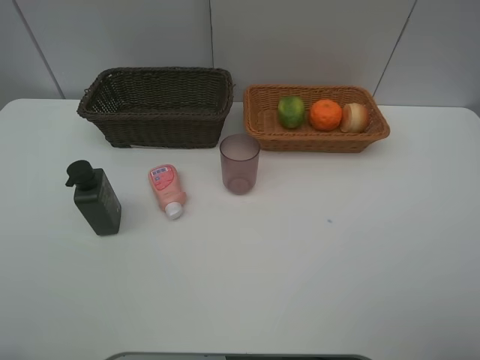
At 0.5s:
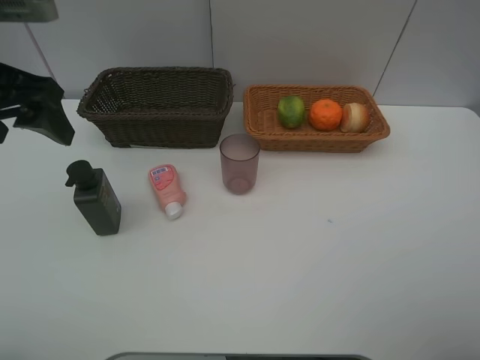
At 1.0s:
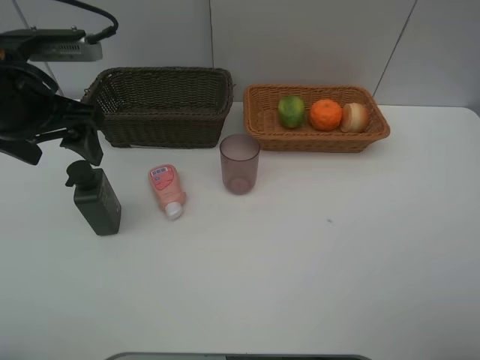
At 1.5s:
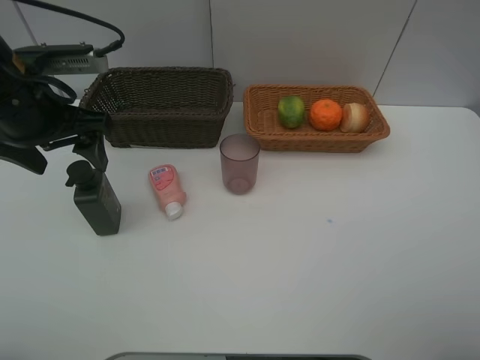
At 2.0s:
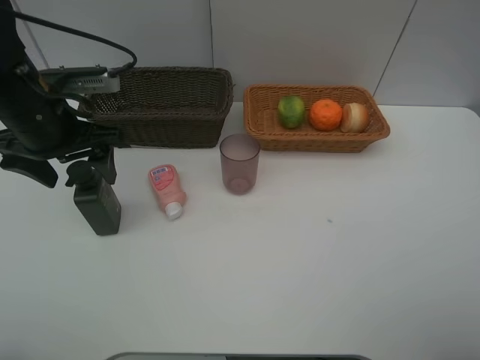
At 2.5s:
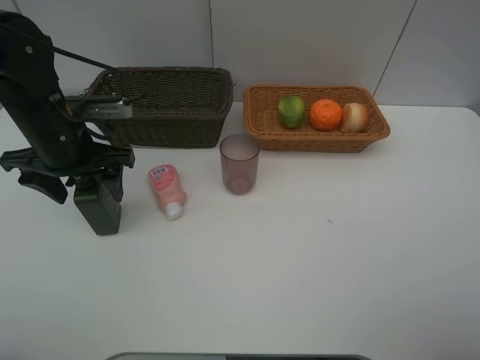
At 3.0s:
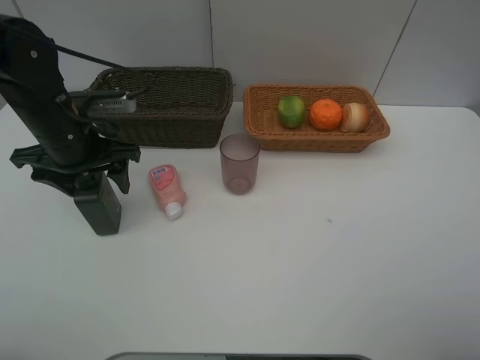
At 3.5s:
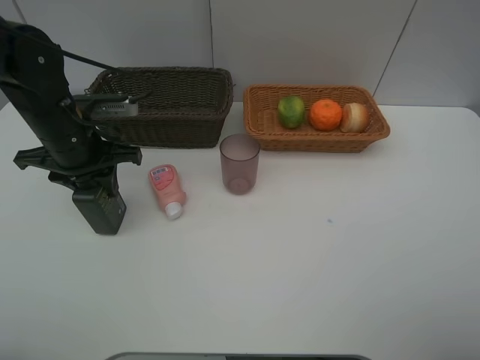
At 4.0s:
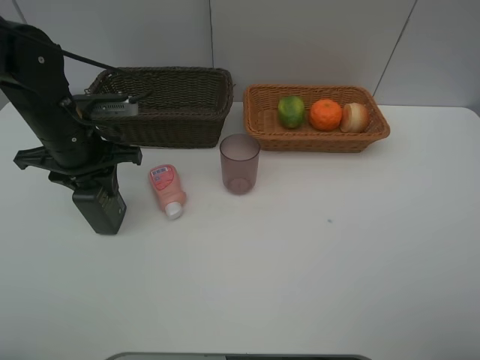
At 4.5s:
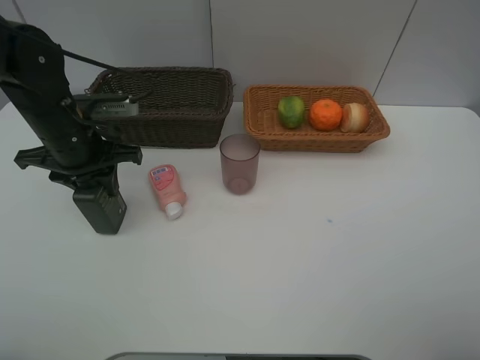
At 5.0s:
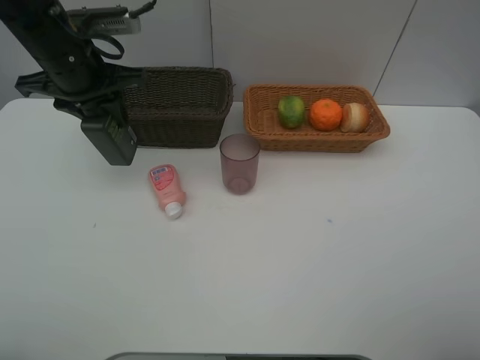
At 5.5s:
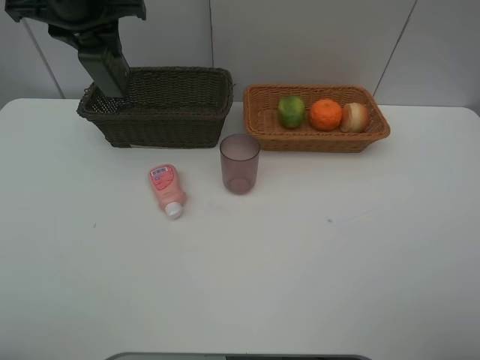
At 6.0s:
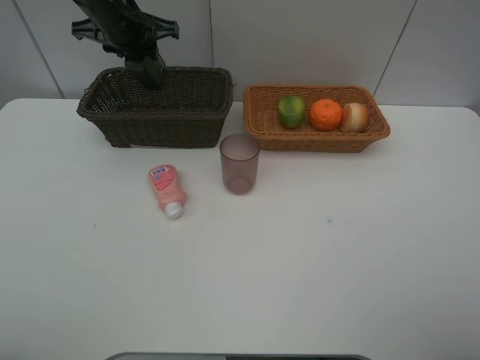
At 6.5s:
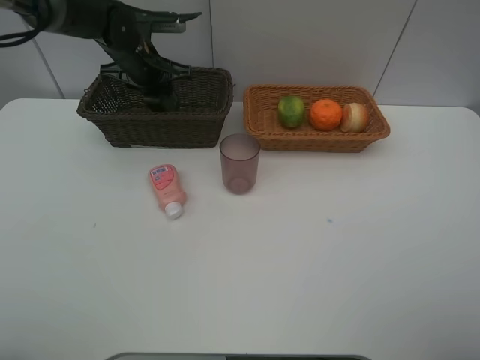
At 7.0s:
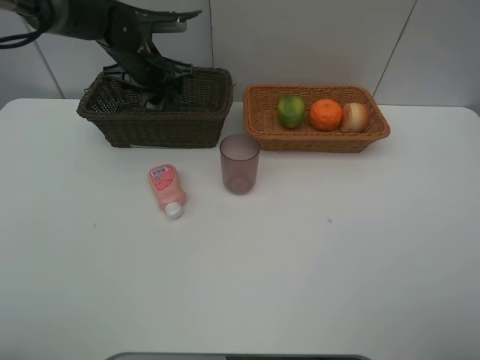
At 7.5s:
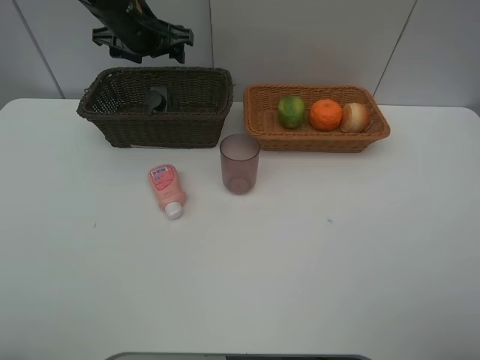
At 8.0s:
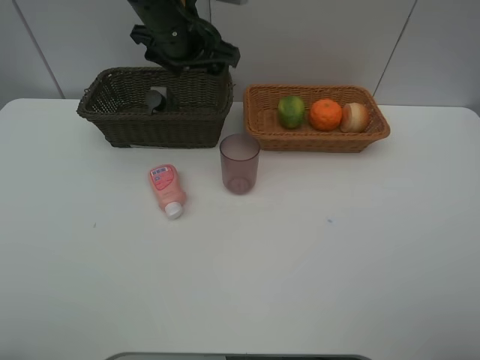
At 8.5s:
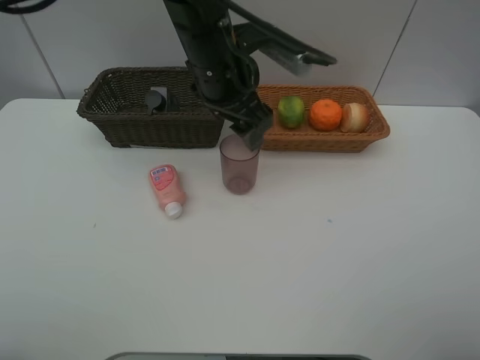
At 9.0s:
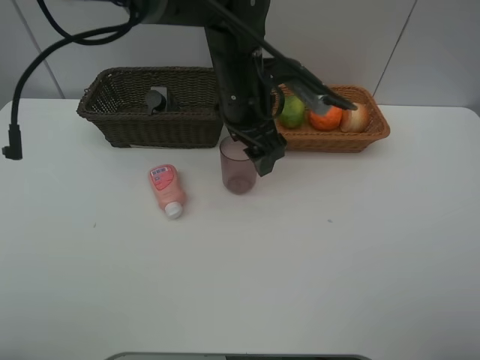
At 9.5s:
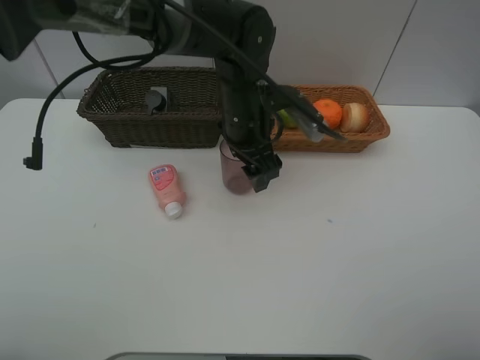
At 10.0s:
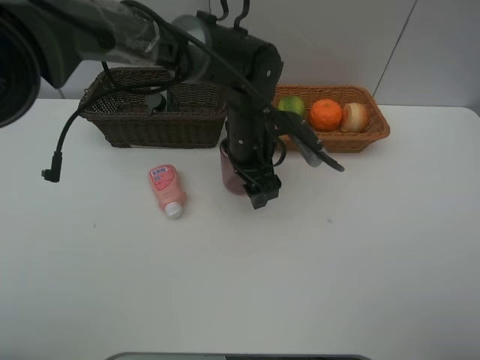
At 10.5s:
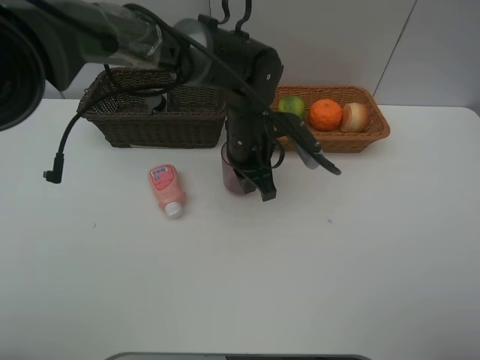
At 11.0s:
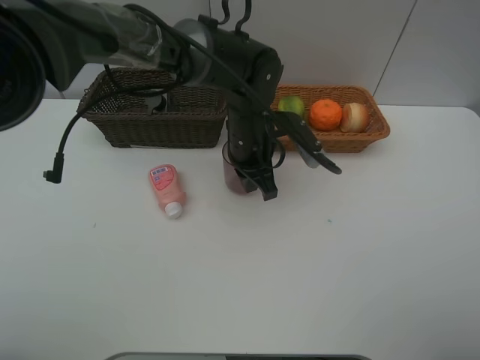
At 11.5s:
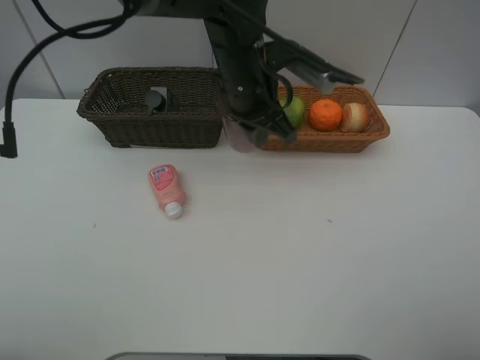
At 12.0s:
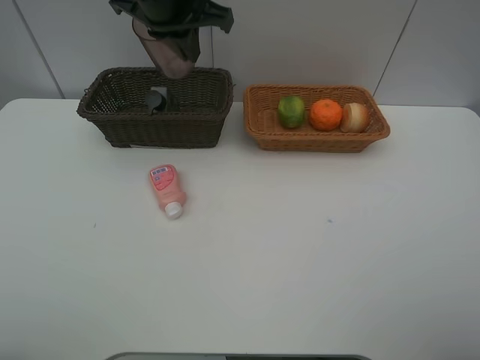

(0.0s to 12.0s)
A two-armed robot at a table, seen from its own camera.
Task of the whole recording: place multiple objects separately in different baskets.
0.0s - 2.0s: The left gripper is displaced forward, downward and to the right by some 20 cm.
2.0s - 4.0s: The left gripper shifts by about 5 cm, and closes.
4.0s - 6.0s: The left gripper is displaced forward and upward by roughly 20 cm.
6.0s - 8.0s: The left gripper travels to the right and backward by some 10 cm, and opens up.
8.0s - 10.0s: The left gripper heads downward, to the right and backward, covering approximately 15 cm.
10.0s - 12.0s: The left gripper shifts roughly 20 cm upward and to the left, and closes its fingers.

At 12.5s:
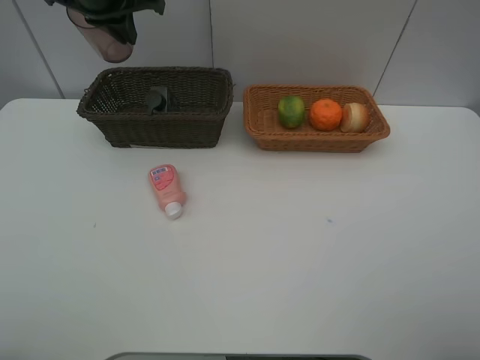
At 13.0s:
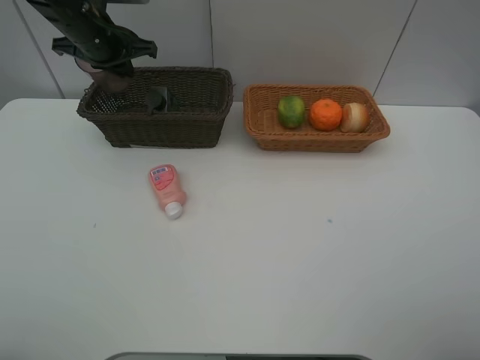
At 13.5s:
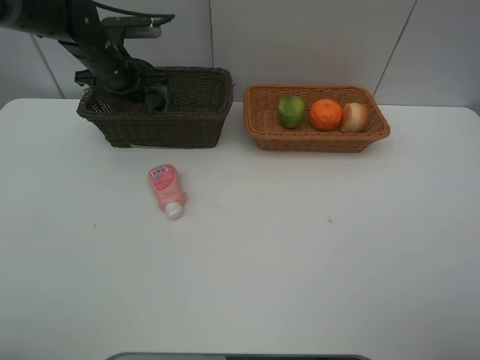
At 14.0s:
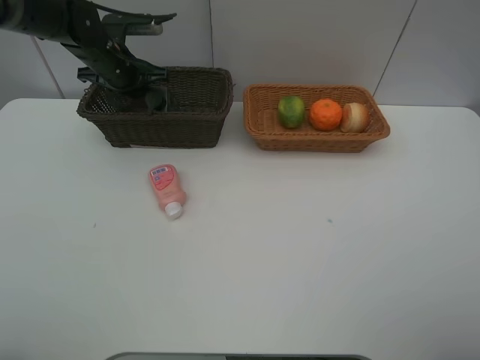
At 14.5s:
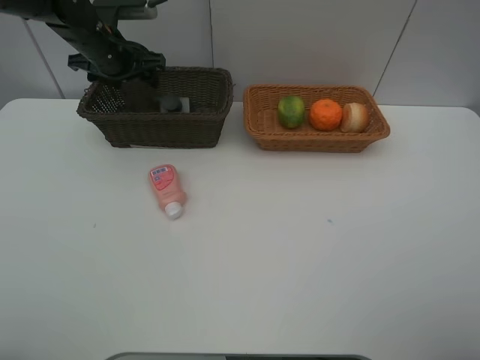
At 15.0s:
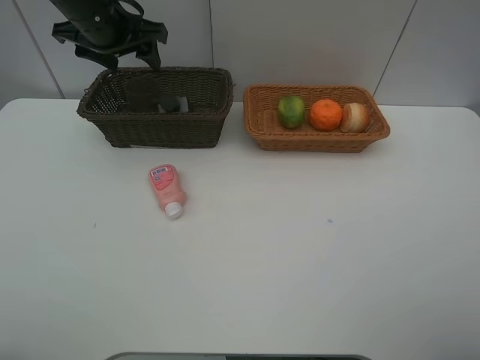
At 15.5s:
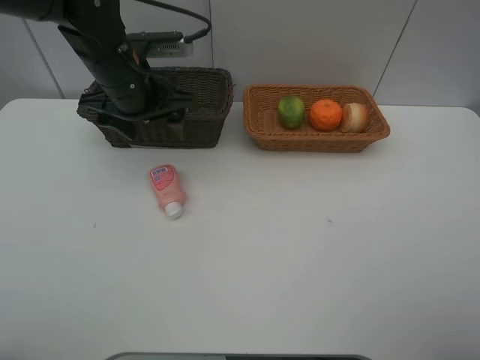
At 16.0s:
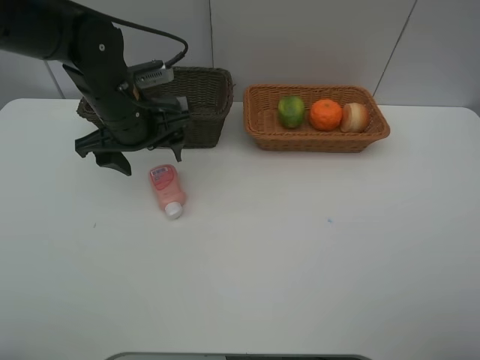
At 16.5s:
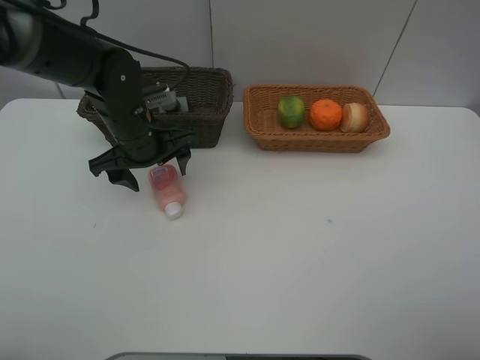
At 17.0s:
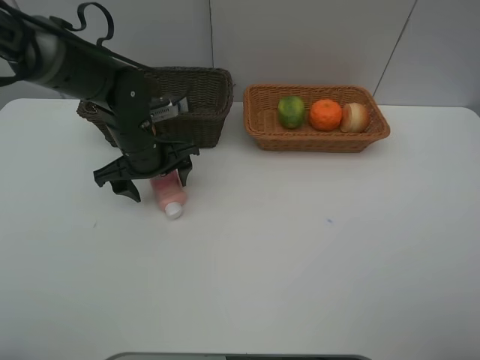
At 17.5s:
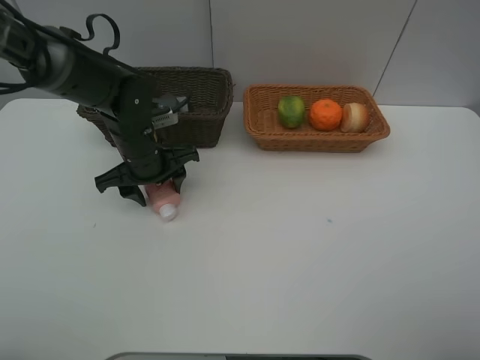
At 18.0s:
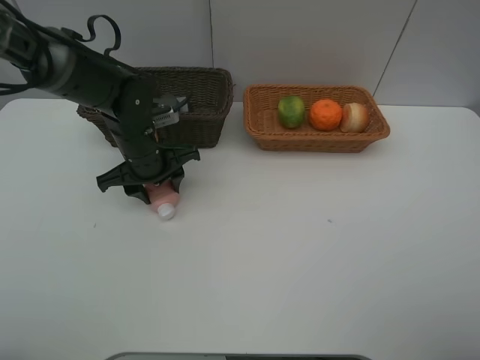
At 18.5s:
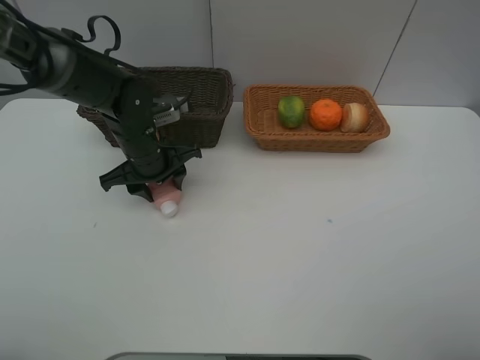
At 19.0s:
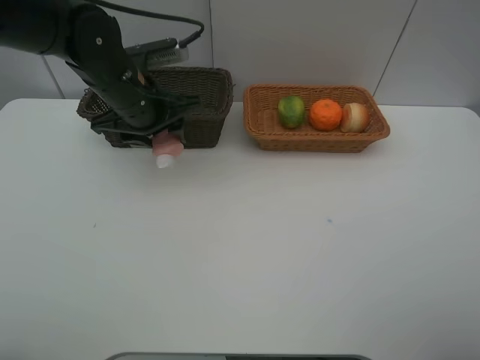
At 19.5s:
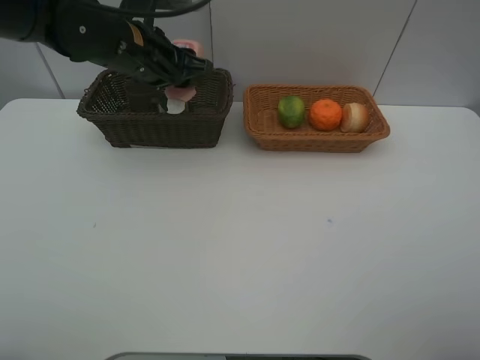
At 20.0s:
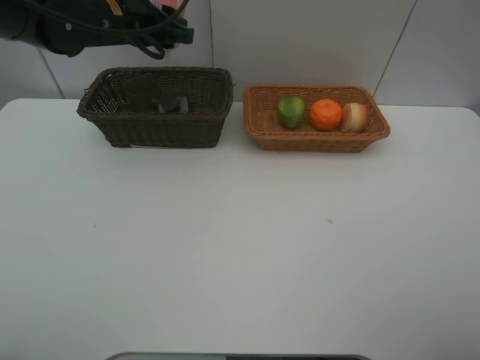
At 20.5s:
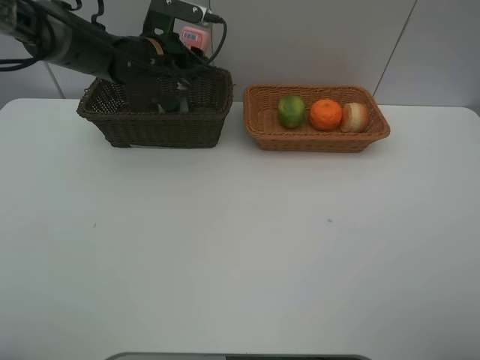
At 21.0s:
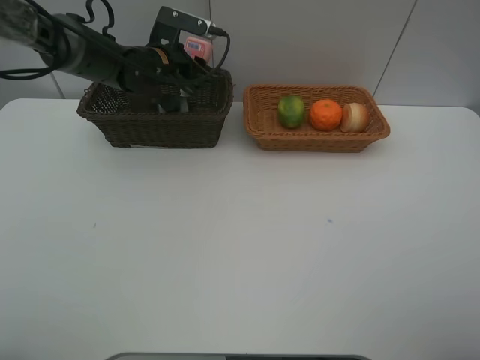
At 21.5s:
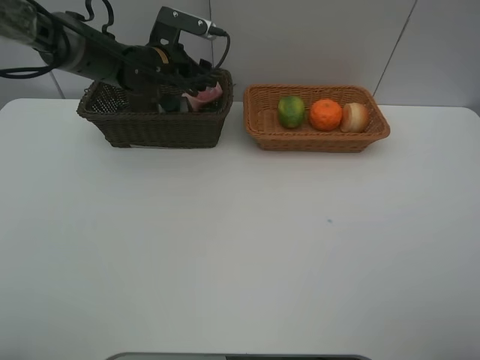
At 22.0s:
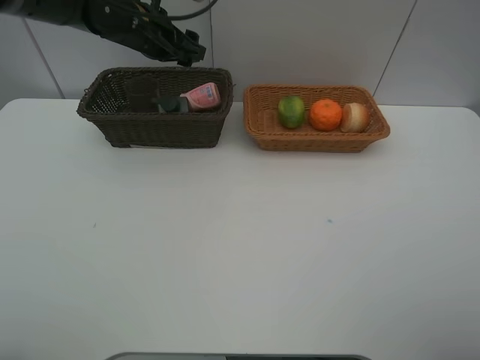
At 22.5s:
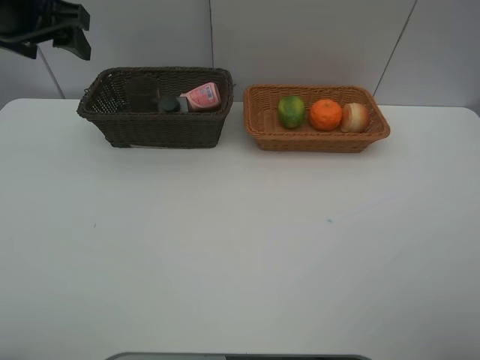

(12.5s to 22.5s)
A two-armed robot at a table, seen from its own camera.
Task of the whole recording: place multiple objects separately in different baskets.
12.5s - 14.5s: The left gripper goes about 10 cm downward, and opens its fingers.
14.5s - 16.5s: The left gripper is displaced backward, downward and to the right by approximately 15 cm.
16.5s - 18.5s: The left gripper closes up.
18.5s - 20.5s: The left gripper goes approximately 15 cm forward and upward.
20.5s - 22.5s: The left gripper goes about 20 cm upward, to the left and backward.

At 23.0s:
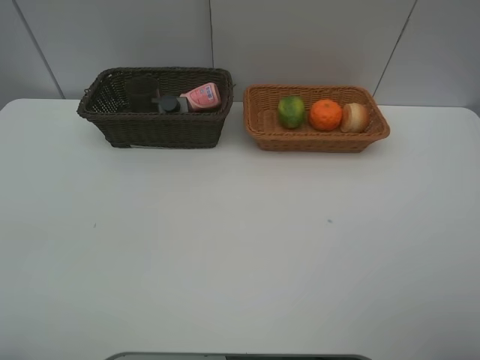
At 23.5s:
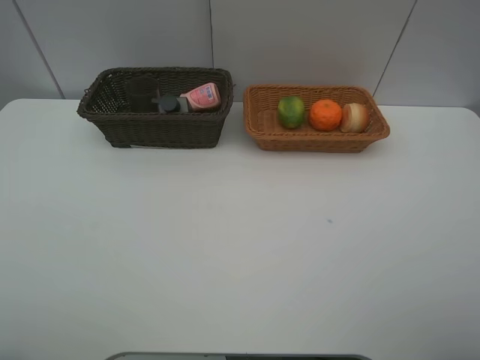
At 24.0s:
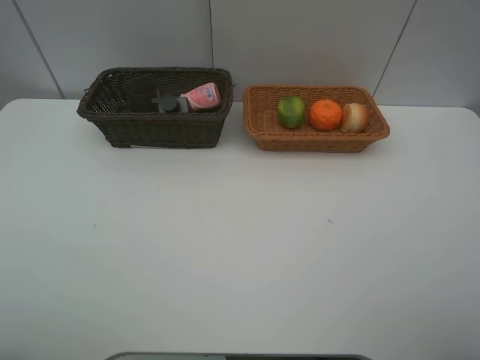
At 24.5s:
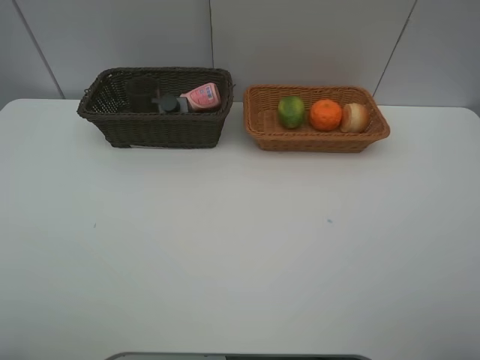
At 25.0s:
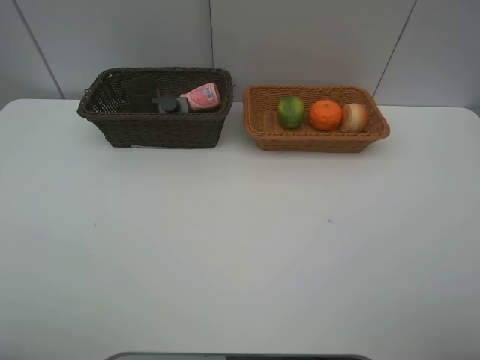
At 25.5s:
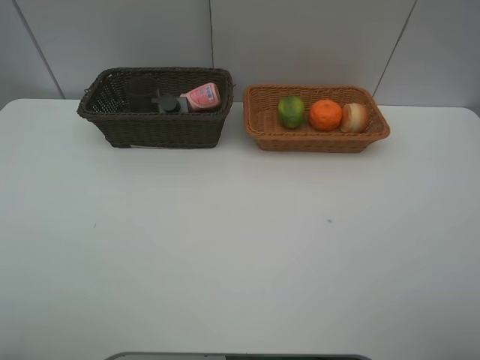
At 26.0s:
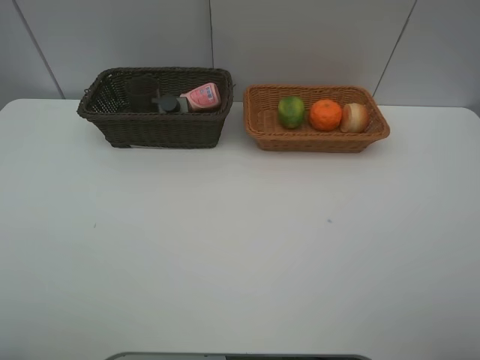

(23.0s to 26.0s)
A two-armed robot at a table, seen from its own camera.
Task of the whole recording: place multiple objects separately in different baskets.
24.5s - 26.0s: Neither gripper changes place.
